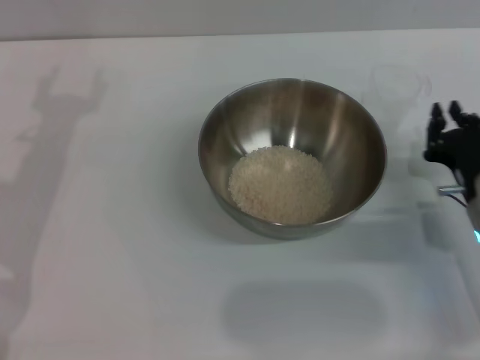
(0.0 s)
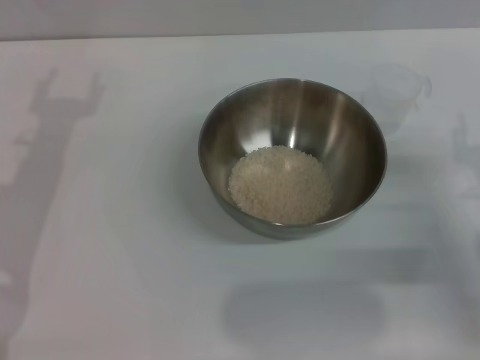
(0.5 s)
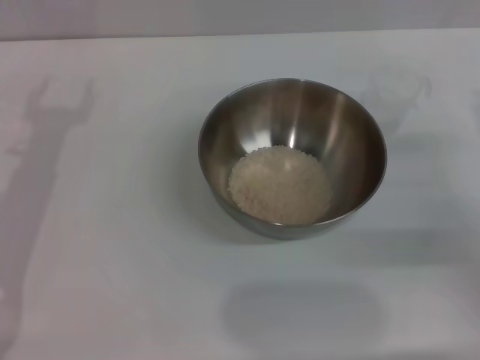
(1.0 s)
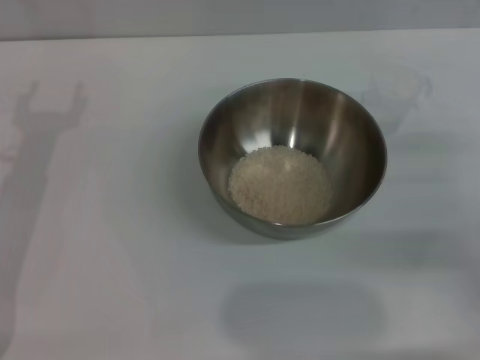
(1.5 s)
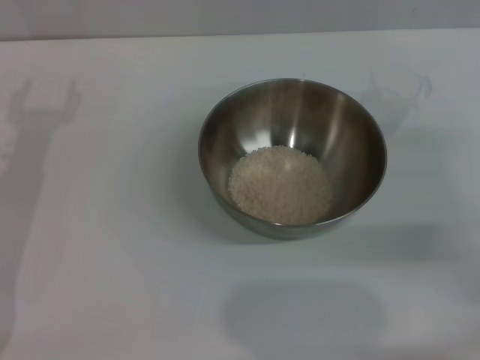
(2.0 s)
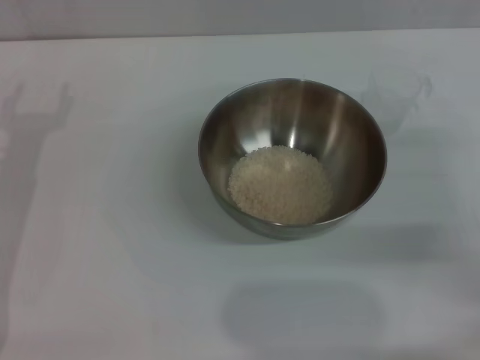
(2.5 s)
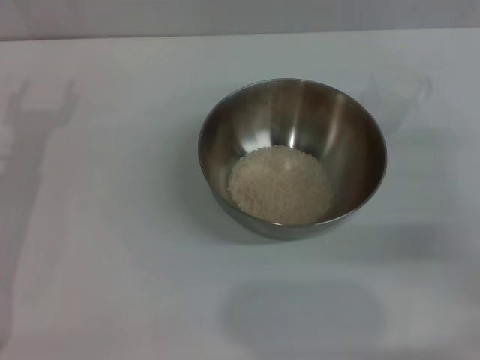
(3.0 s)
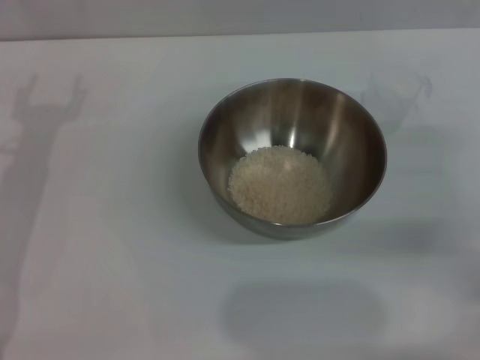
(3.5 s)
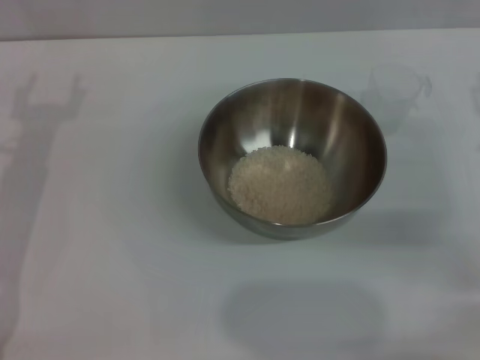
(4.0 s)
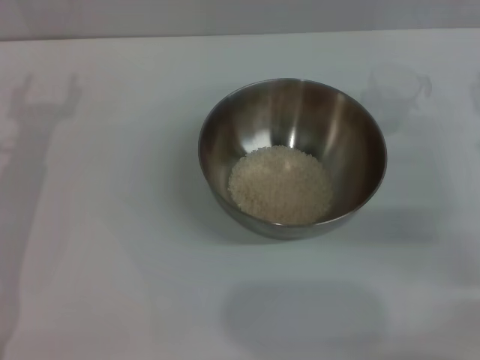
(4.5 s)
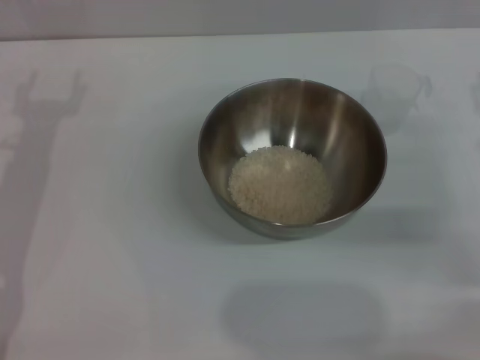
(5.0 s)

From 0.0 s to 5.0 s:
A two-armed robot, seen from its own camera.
Task of the whole recording: Place the bowl in the middle of the table with one hand and pour the rice from the grain cup into it with the other hand.
From 0.0 s to 2.5 s: The right gripper goes about 10 cm upward and to the right, and opens its fingers; the left gripper changes place by some 5 cm.

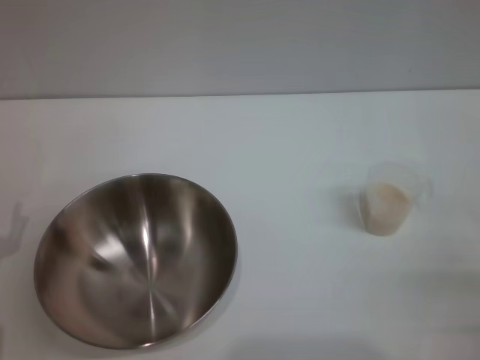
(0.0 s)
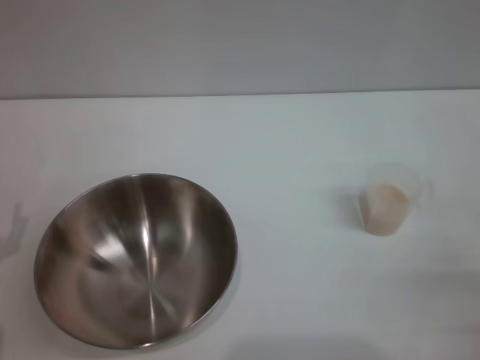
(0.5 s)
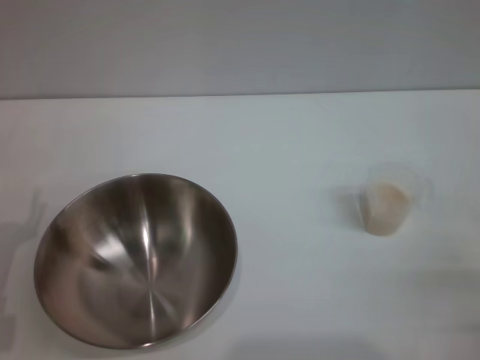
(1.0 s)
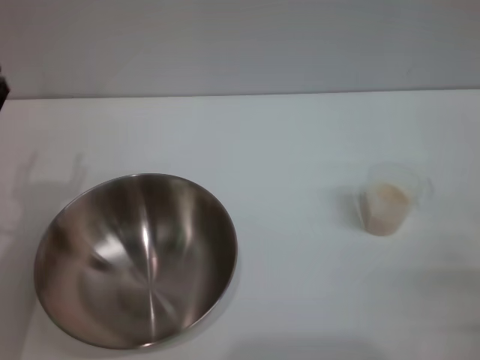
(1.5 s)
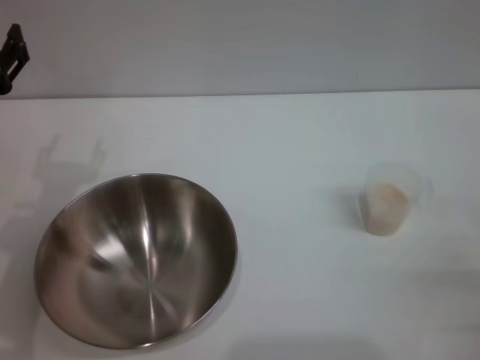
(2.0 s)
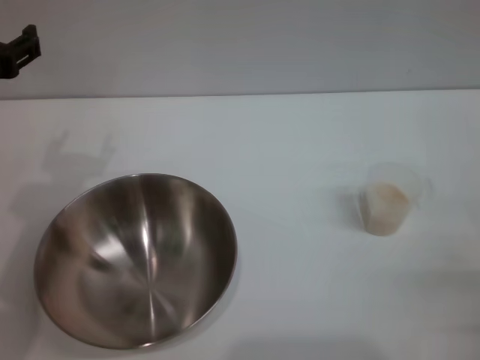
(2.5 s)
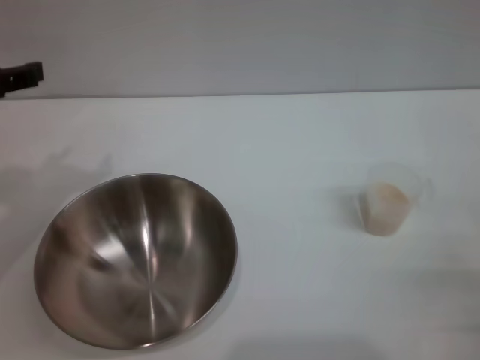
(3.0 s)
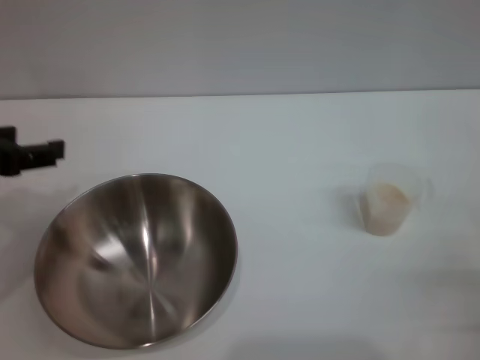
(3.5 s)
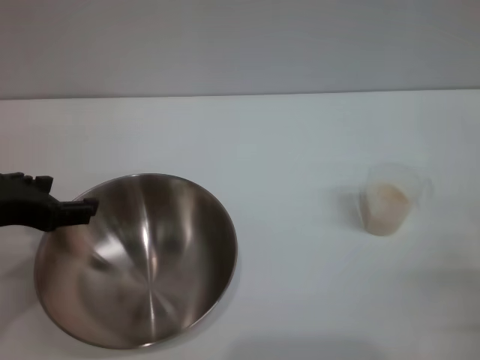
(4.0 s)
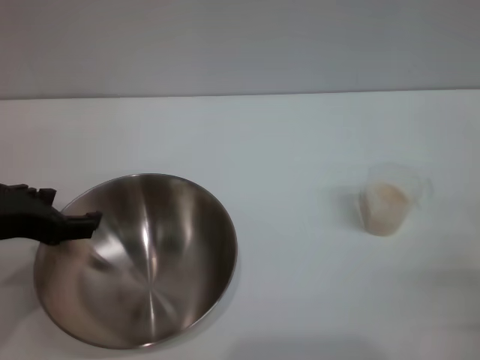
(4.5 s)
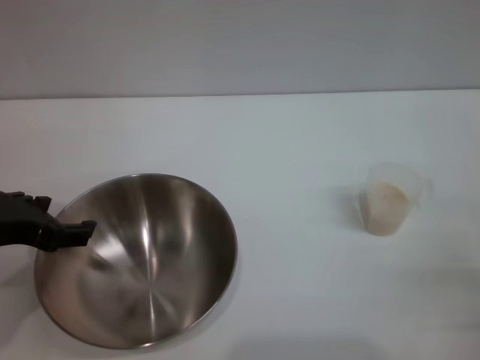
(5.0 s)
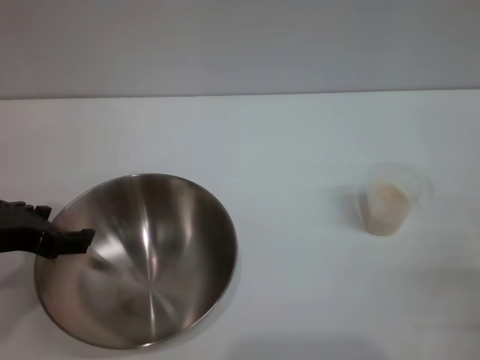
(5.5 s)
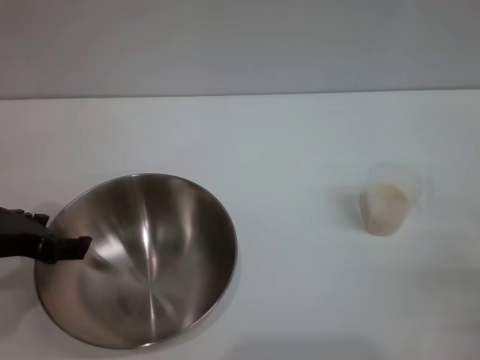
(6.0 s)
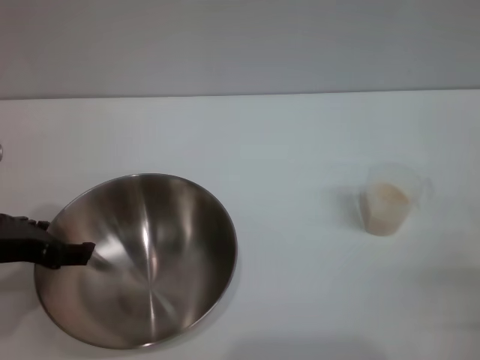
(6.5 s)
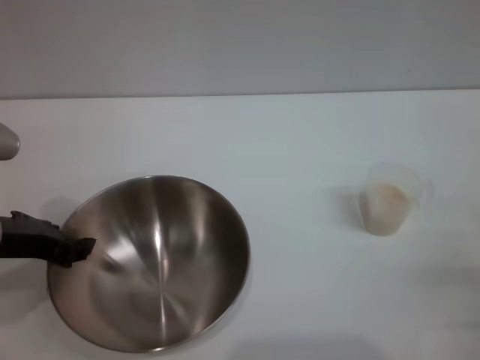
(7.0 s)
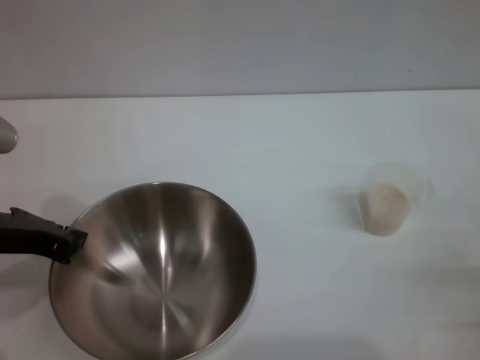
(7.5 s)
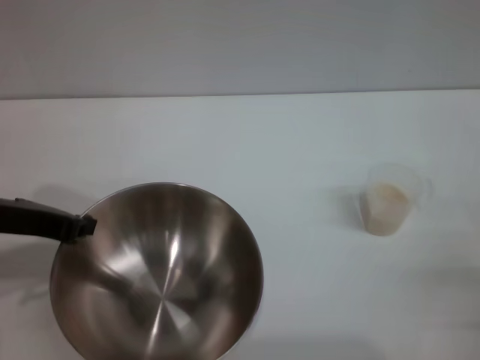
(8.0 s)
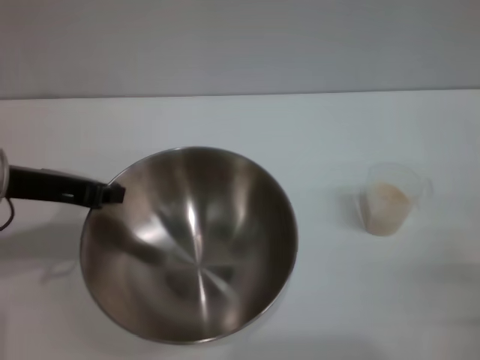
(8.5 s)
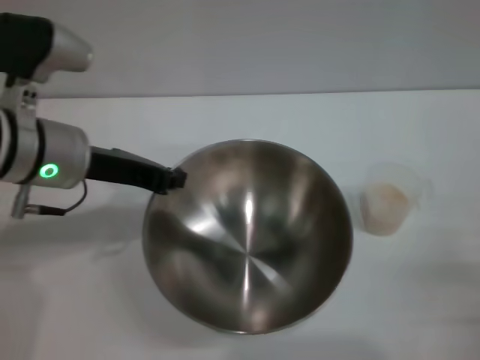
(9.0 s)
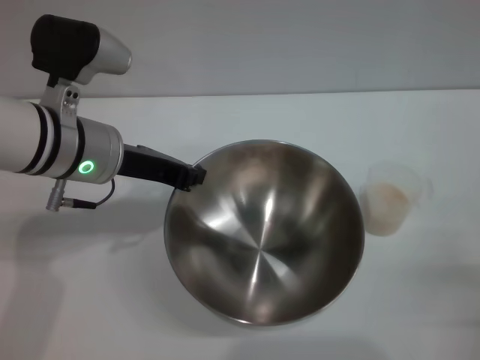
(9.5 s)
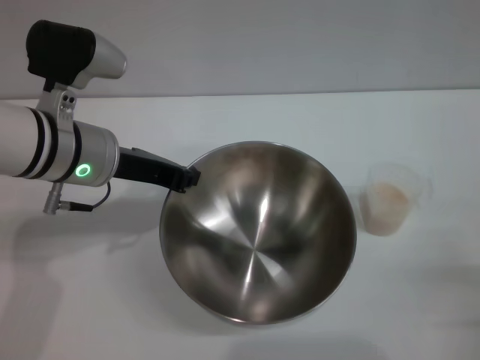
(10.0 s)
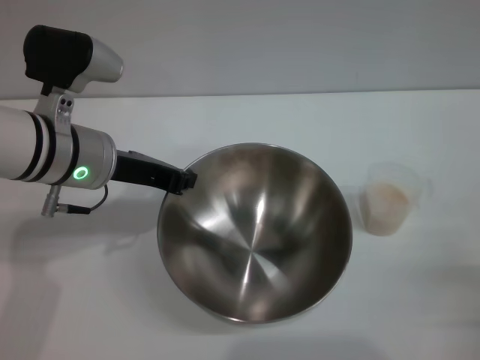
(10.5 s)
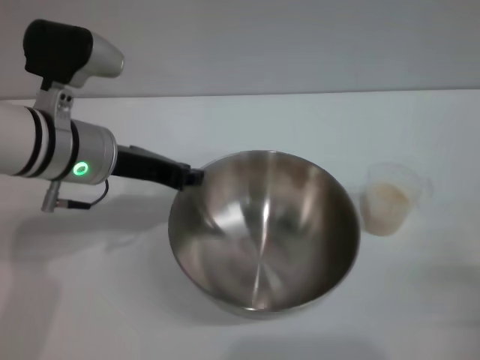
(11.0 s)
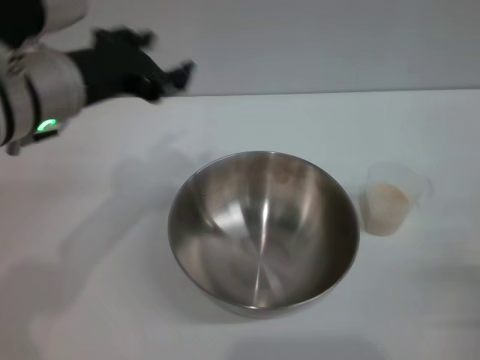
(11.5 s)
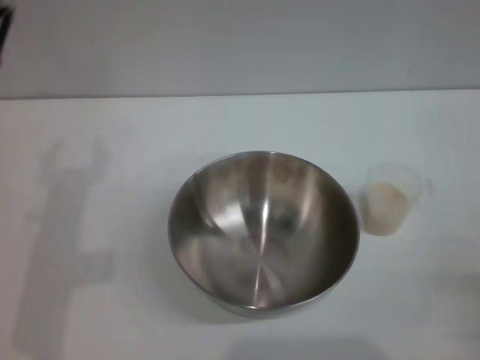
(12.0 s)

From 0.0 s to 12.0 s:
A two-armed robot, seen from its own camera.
Task of the whole recording: Place the bowl in the middle of the table with one hand and pour the rice from the grain cup into it with the other hand.
Step, from 0.0 s to 8.5 s: Pick up the bowl with the left gripper.
Step, from 9.0 s to 11.0 s: Place the bowl in the center of view with the left gripper.
From 0.0 s to 2.0 s: The left gripper travels upward, forward and to the right by some 15 cm.
From 4.0 s to 6.0 s: There are only small adjustments of the grippers.
From 6.0 s to 8.0 s: The left gripper closes up.
From 8.0 s to 10.0 s: The left gripper goes some 10 cm to the right and forward.
From 10.0 s to 12.0 s: The left gripper heads backward and to the left, covering approximately 10 cm, and opens.

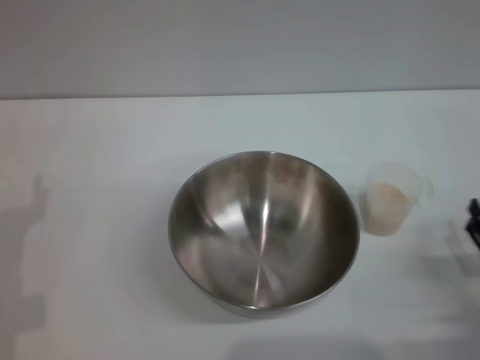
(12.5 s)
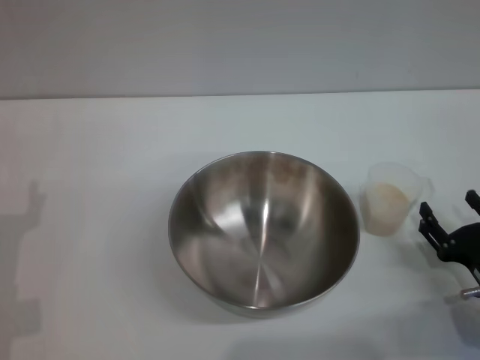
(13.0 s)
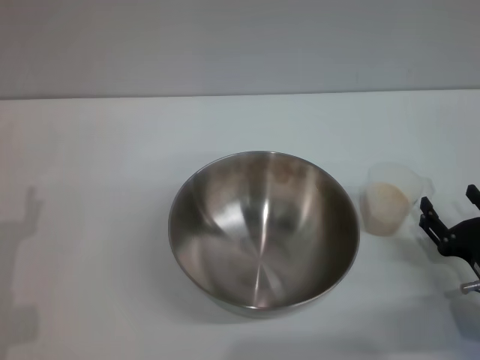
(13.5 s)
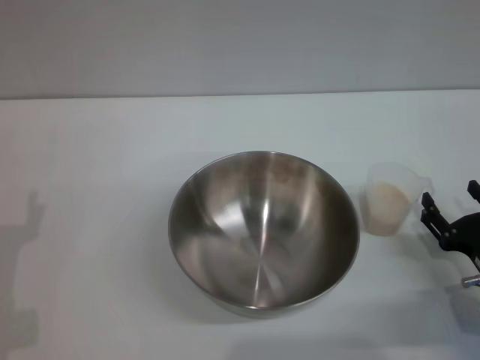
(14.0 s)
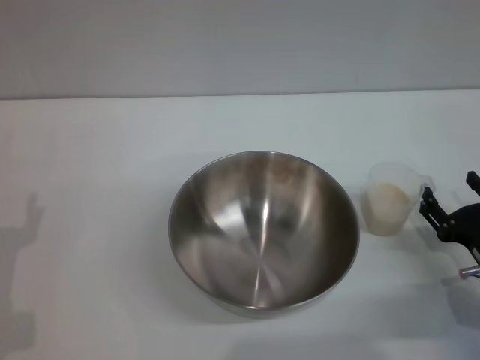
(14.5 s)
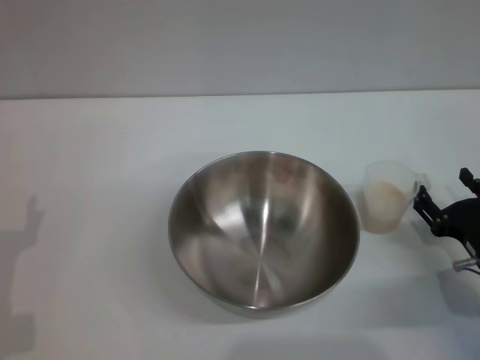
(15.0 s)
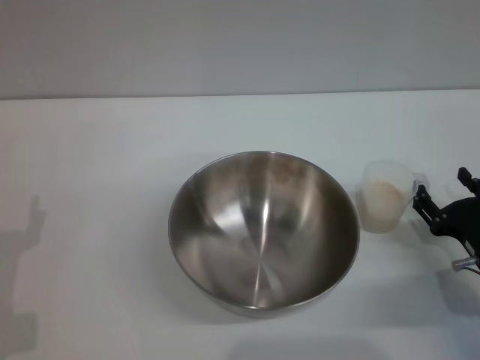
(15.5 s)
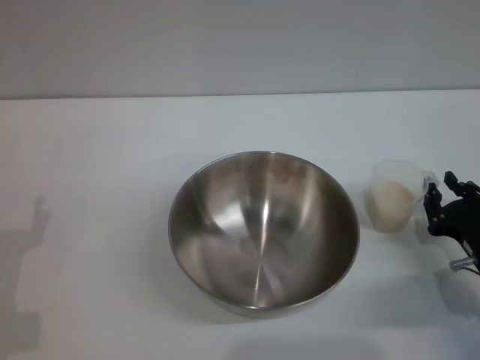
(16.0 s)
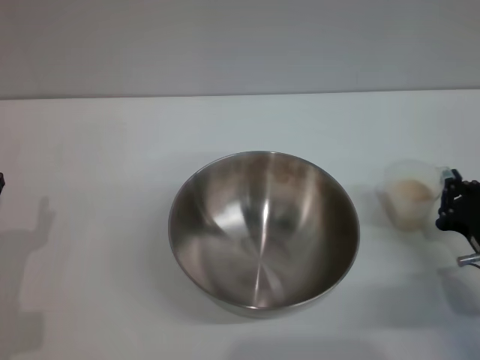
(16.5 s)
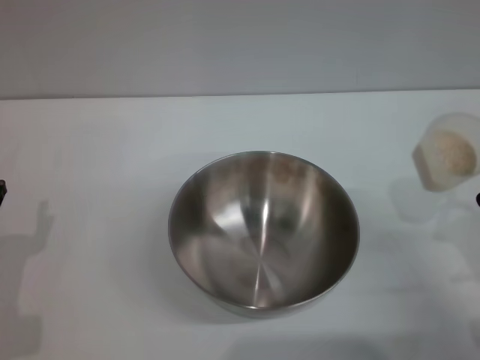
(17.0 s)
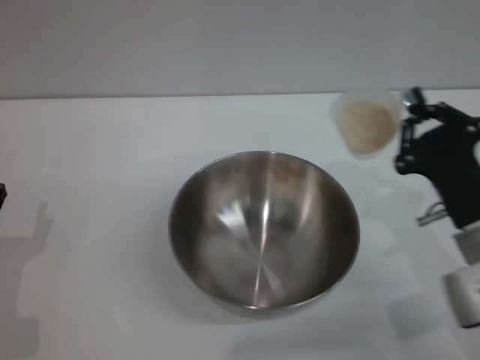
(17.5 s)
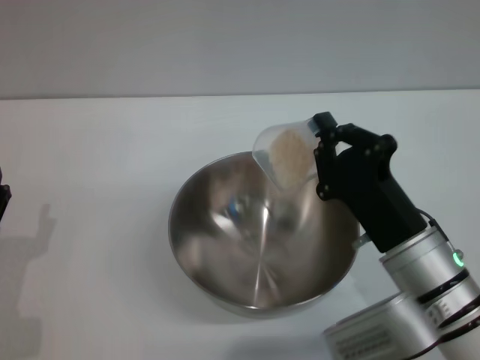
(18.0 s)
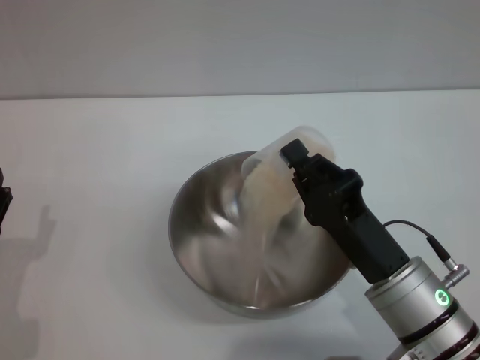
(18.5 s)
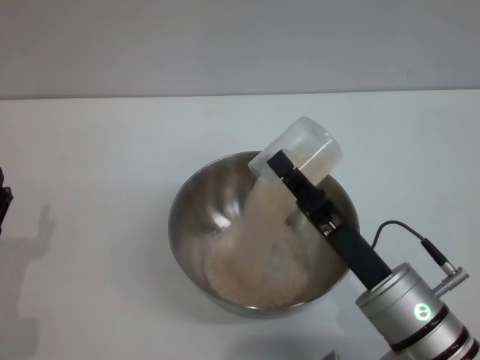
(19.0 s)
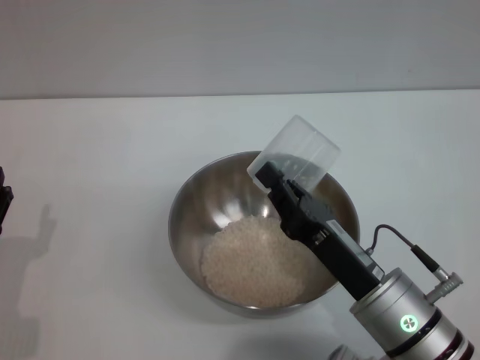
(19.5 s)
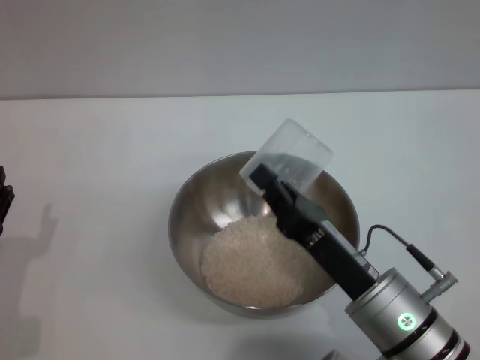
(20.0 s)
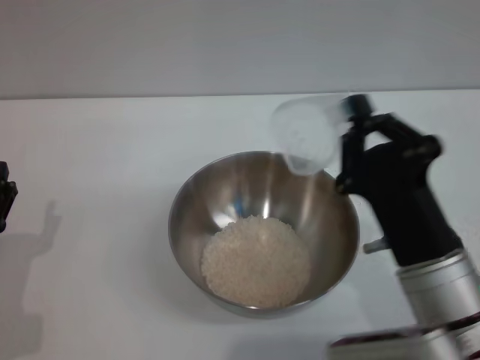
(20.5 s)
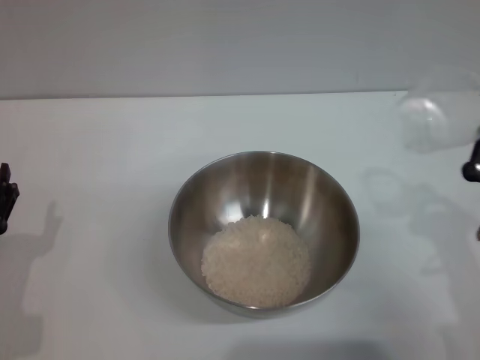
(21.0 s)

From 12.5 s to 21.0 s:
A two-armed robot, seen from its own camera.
Task of the whole recording: Place the bowl in the middle of the table with one hand and pour the rice from the grain cup into it with the other hand.
Step, from 12.5 s to 16.5 s: Pick up the cup with rice in it with the right gripper.
Step, from 17.0 s to 19.0 s: Pour the rice from the cup into the bowl with the right gripper.
From 12.5 s to 14.5 s: The right gripper travels forward by about 5 cm.
From 14.5 s to 16.5 s: The right gripper closes its fingers.
From 16.5 s to 19.0 s: The right gripper goes about 15 cm to the left.
From 19.0 s to 21.0 s: The right gripper travels to the right by roughly 10 cm.
